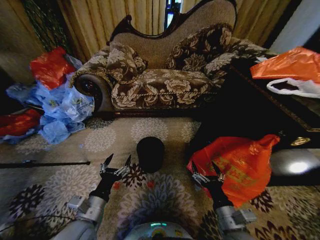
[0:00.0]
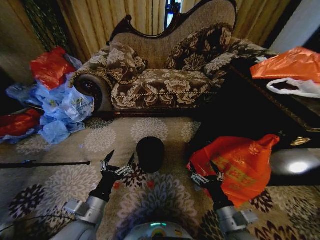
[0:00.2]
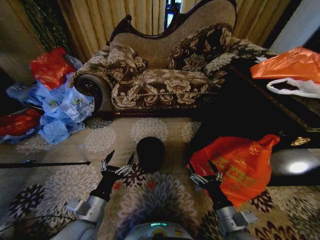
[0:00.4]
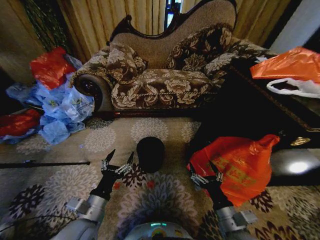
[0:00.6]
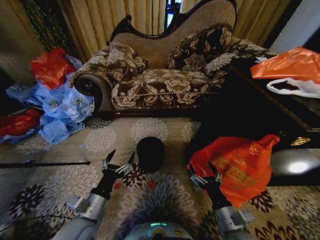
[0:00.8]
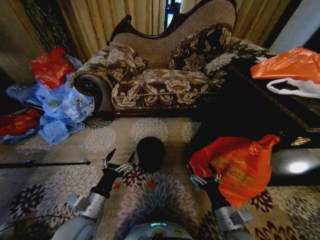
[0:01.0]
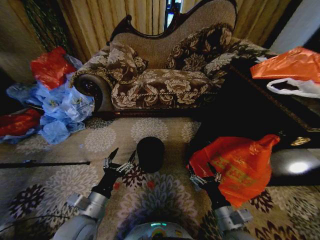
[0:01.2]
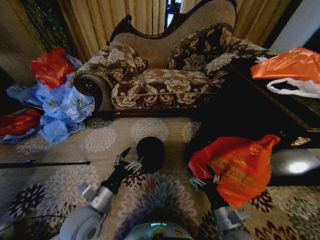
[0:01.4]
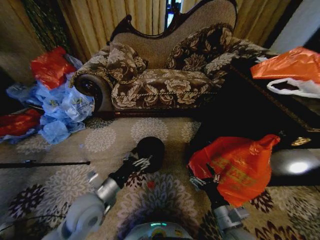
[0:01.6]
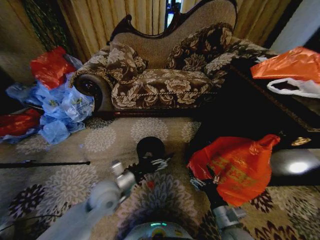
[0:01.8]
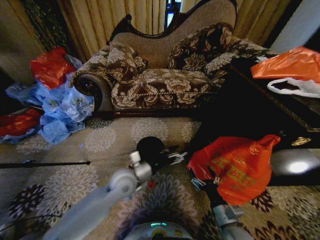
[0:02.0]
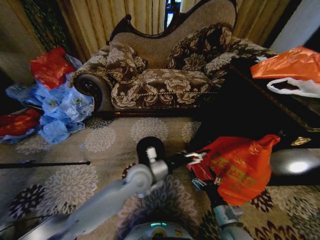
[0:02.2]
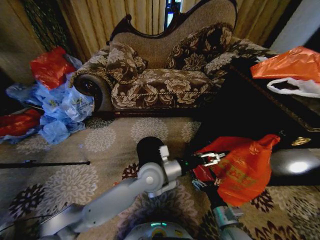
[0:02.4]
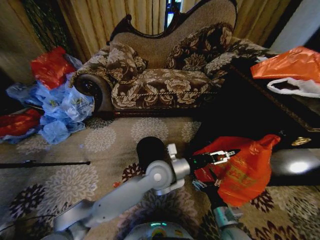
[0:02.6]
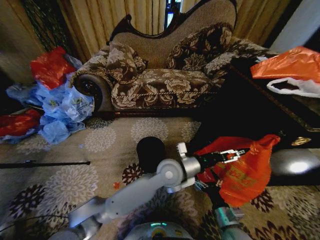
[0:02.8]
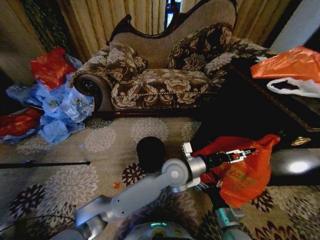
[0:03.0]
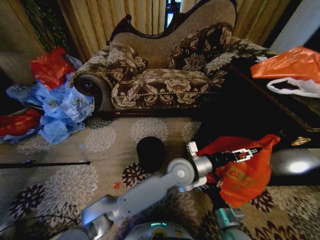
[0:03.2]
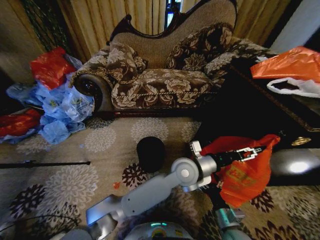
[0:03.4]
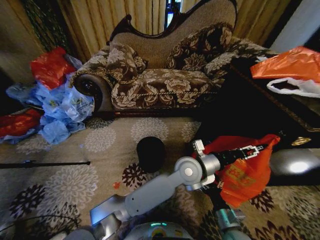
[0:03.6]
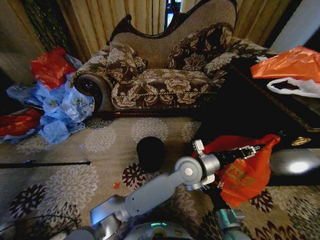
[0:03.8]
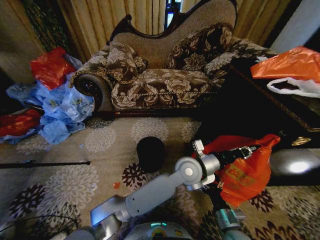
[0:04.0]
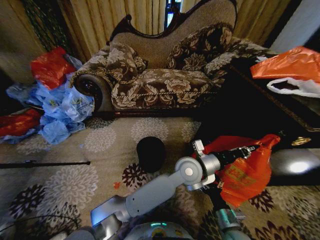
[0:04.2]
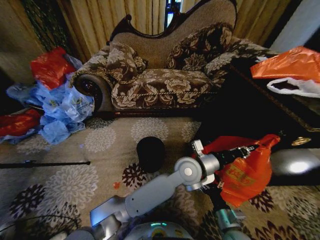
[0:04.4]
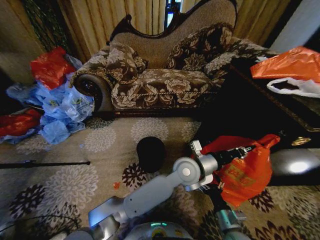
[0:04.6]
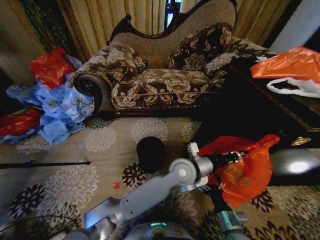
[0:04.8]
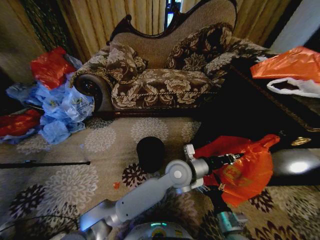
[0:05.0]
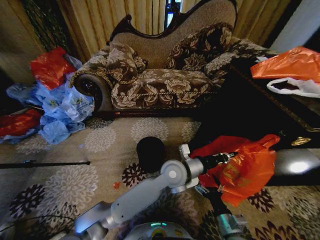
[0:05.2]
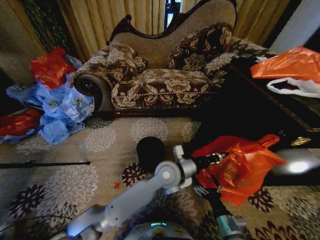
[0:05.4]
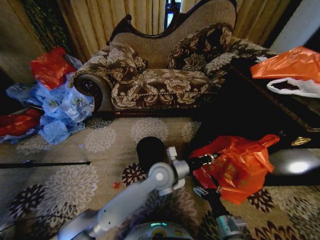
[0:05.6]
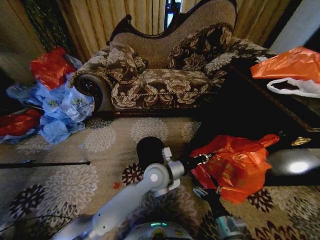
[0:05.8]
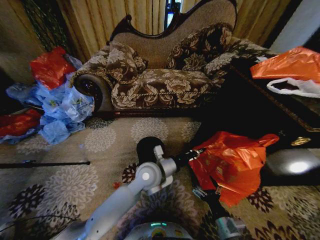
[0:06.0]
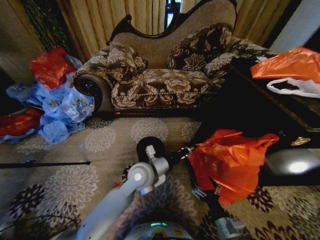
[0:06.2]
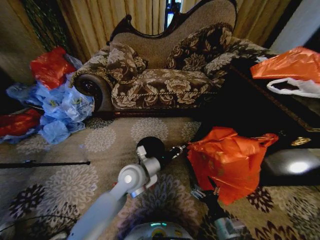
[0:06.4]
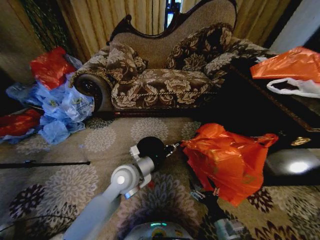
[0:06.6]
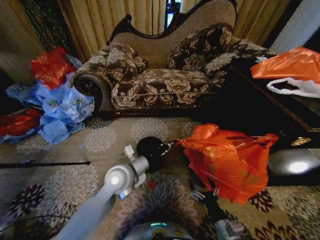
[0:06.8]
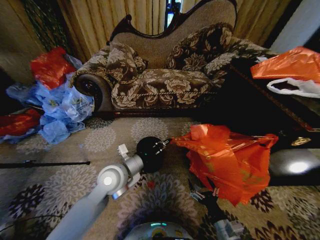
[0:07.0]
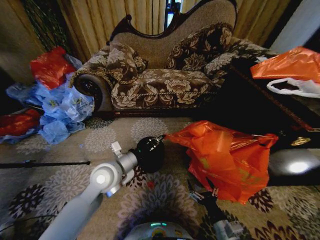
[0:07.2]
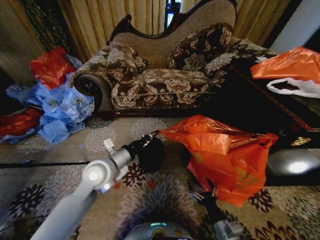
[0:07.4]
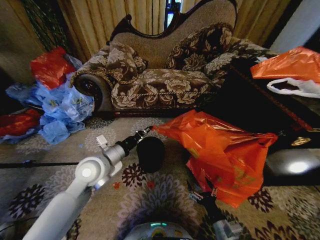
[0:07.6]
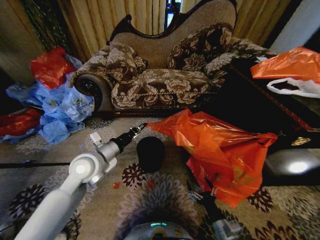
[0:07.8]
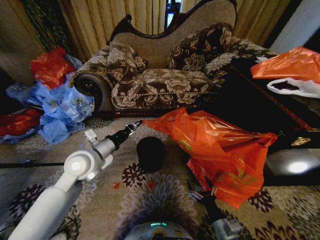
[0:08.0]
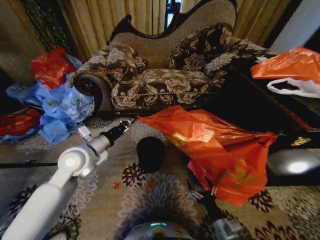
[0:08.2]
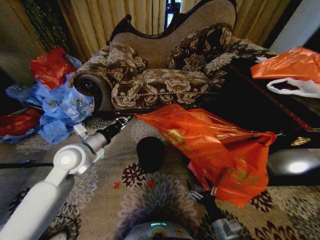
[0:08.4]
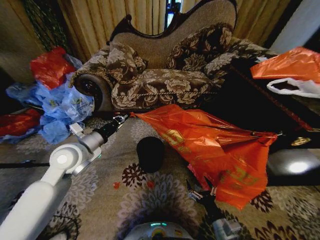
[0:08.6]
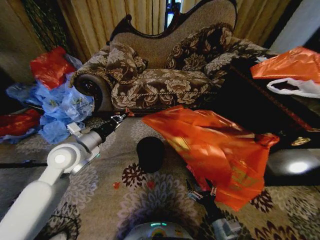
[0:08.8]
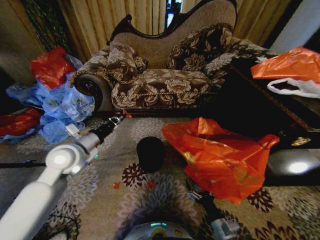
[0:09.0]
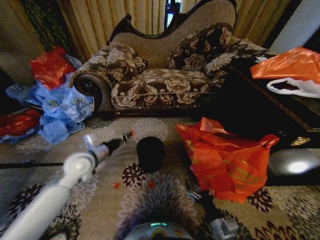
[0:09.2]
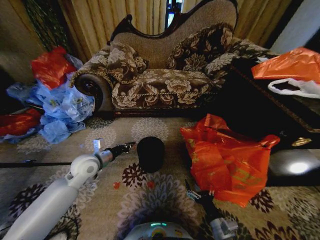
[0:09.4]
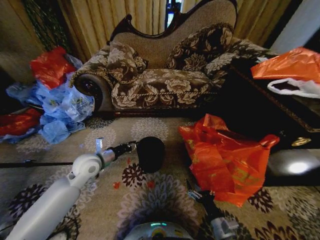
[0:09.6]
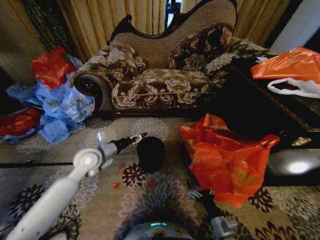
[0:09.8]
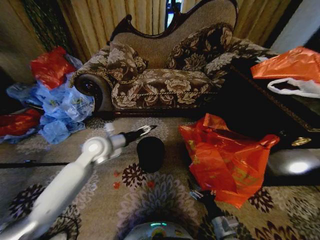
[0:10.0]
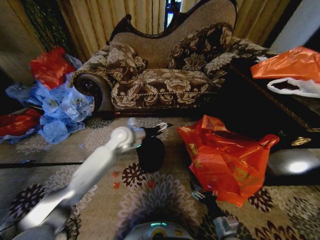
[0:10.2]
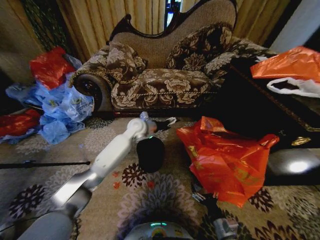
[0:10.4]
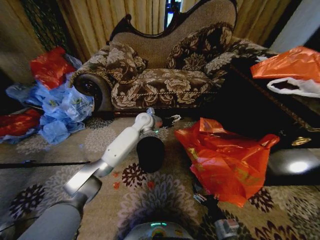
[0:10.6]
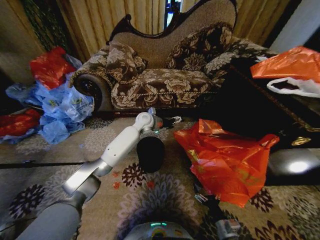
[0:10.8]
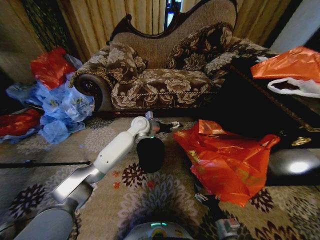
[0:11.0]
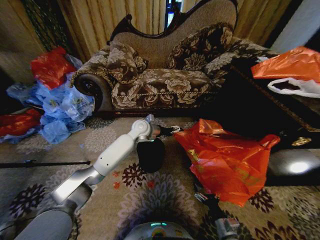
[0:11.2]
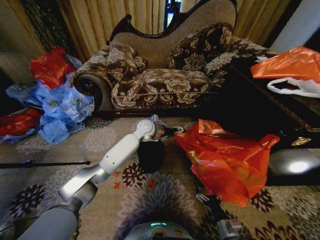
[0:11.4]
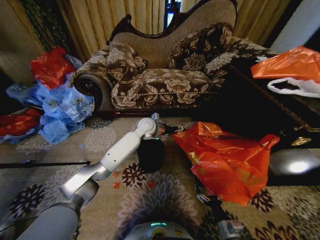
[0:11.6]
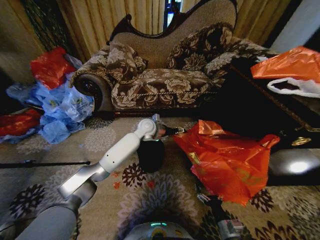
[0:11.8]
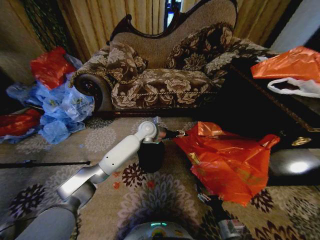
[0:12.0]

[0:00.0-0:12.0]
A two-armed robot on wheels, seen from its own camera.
Task of the whole recording: Place a garbage bag over the trash bin.
0:01.6 to 0:03.0: The right gripper shifts by roughly 5 cm. Meanwhile the left gripper goes some 30 cm to the right and forward.
0:03.0 to 0:04.4: The left gripper closes its fingers.
0:04.4 to 0:06.0: The left gripper moves to the left, some 15 cm.
0:06.0 to 0:07.6: The left gripper goes about 20 cm to the left.
0:07.6 to 0:09.0: The left gripper is displaced to the left by about 10 cm.
0:09.0 to 0:10.4: The right gripper goes approximately 5 cm downward. Meanwhile the left gripper goes about 30 cm forward and to the right, and opens.
0:10.4 to 0:12.0: The grippers make only small movements.

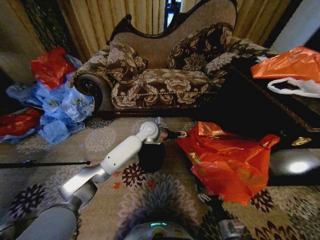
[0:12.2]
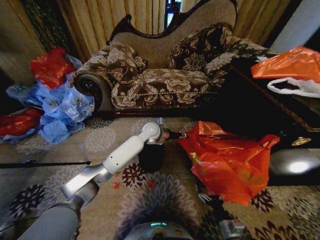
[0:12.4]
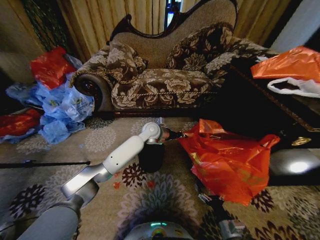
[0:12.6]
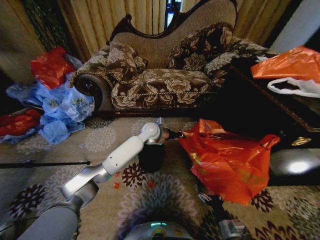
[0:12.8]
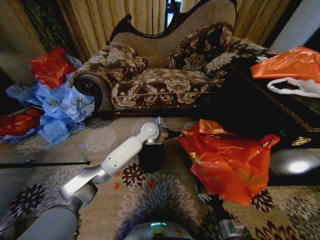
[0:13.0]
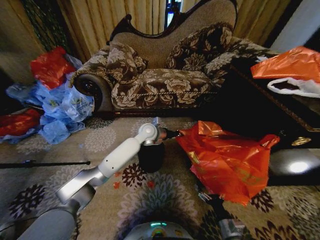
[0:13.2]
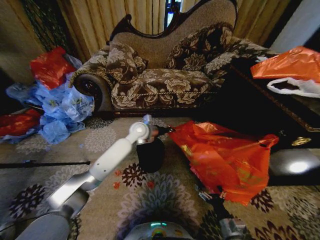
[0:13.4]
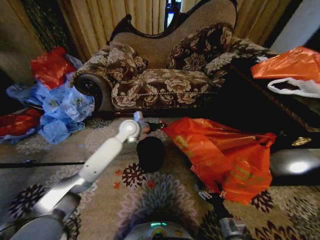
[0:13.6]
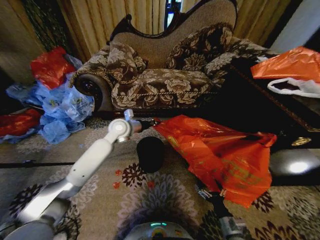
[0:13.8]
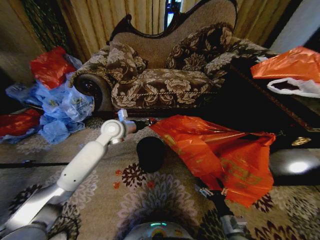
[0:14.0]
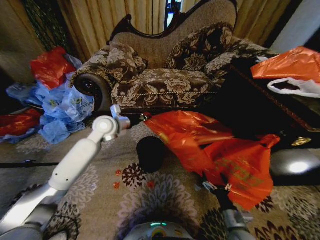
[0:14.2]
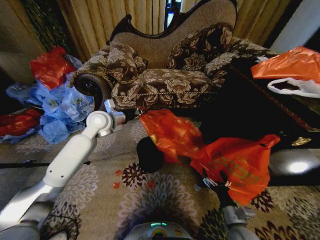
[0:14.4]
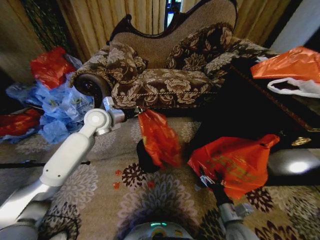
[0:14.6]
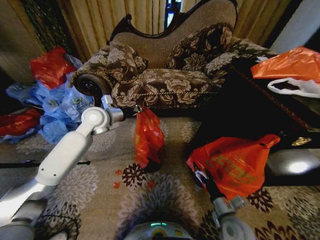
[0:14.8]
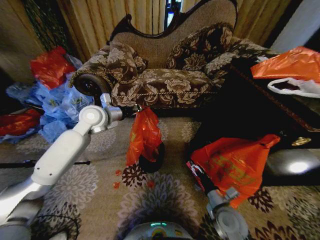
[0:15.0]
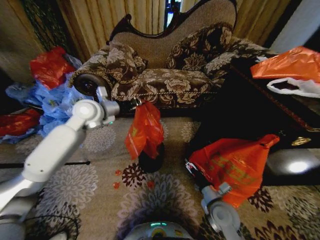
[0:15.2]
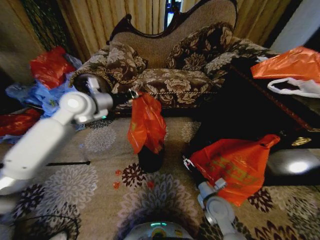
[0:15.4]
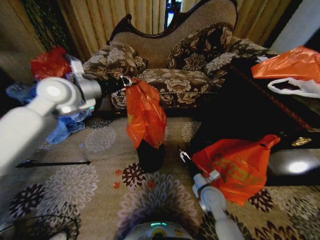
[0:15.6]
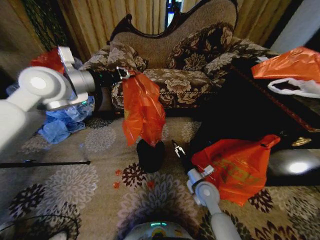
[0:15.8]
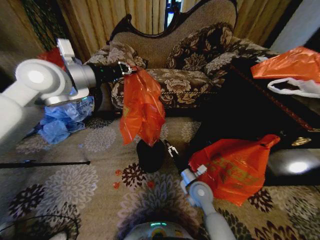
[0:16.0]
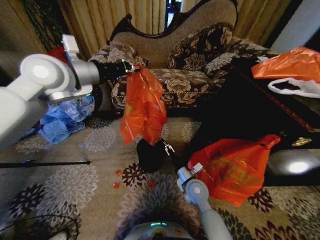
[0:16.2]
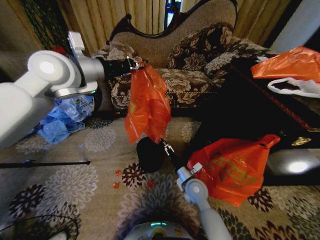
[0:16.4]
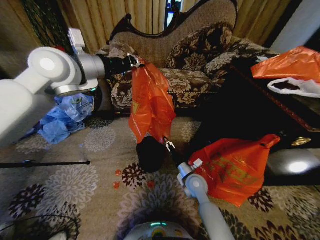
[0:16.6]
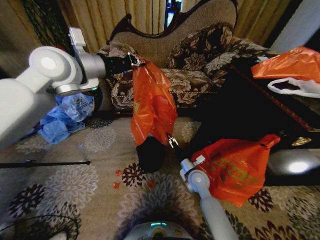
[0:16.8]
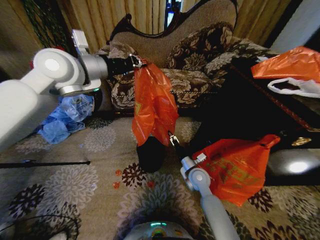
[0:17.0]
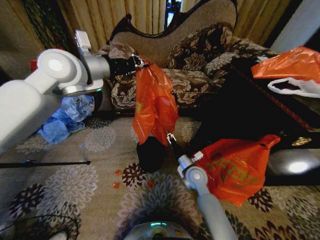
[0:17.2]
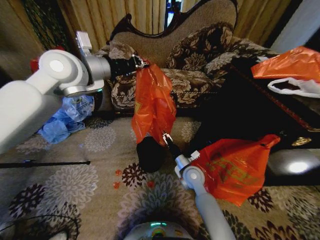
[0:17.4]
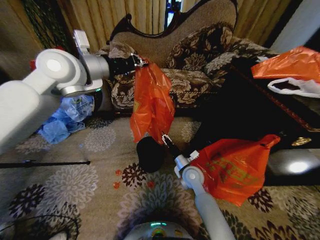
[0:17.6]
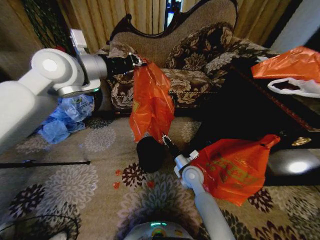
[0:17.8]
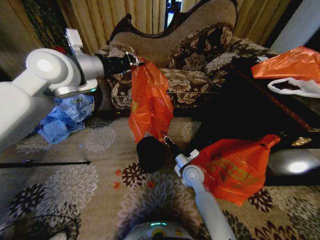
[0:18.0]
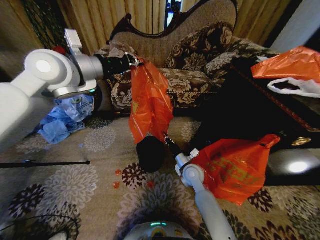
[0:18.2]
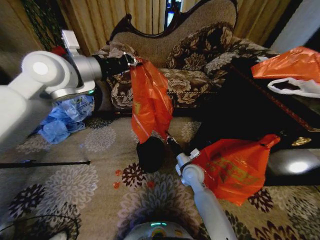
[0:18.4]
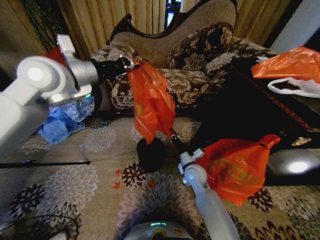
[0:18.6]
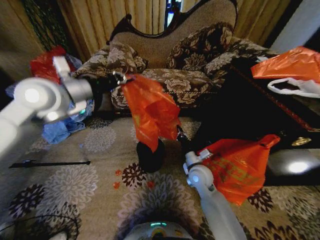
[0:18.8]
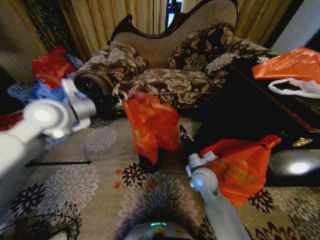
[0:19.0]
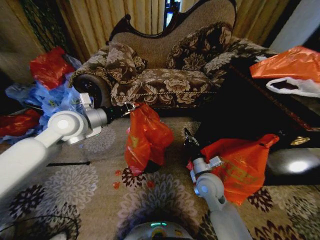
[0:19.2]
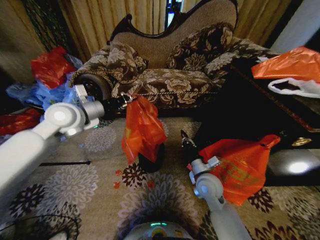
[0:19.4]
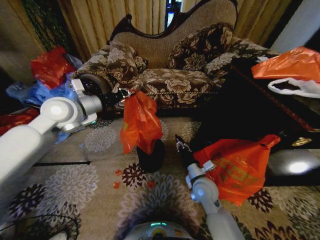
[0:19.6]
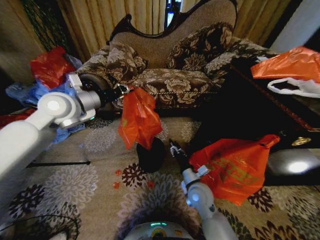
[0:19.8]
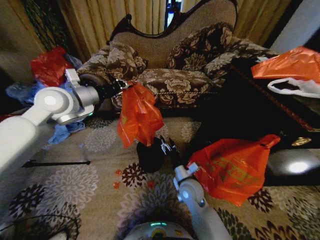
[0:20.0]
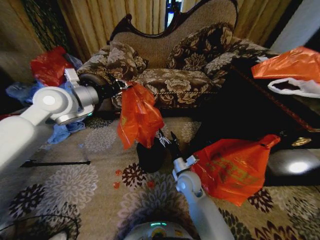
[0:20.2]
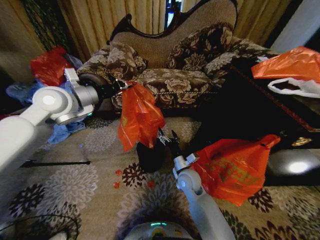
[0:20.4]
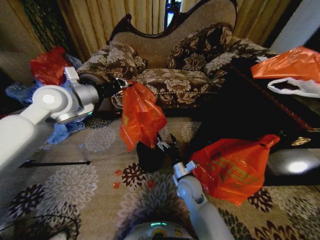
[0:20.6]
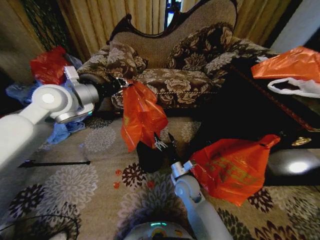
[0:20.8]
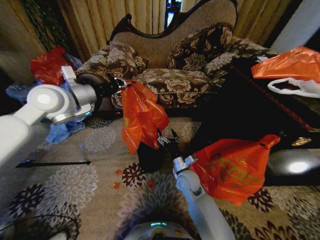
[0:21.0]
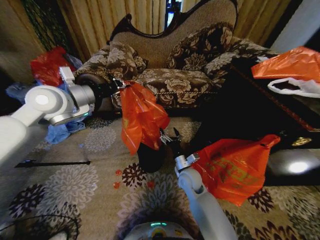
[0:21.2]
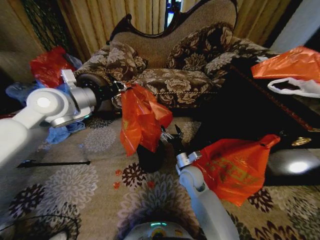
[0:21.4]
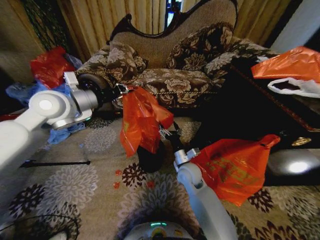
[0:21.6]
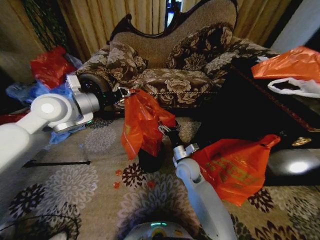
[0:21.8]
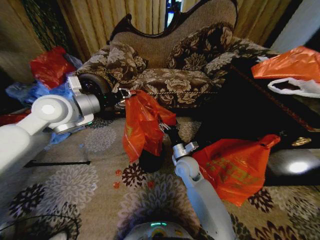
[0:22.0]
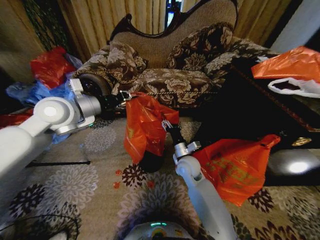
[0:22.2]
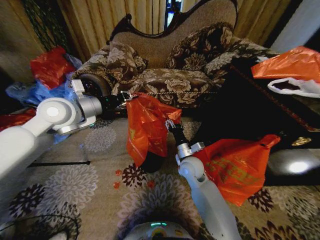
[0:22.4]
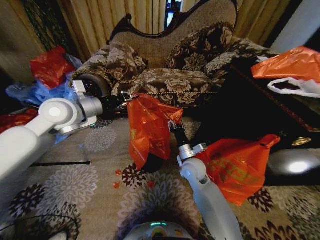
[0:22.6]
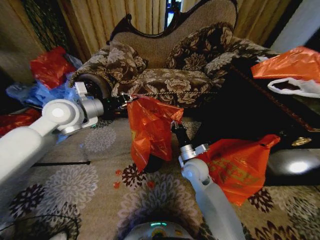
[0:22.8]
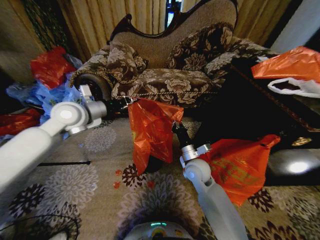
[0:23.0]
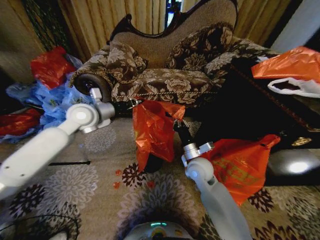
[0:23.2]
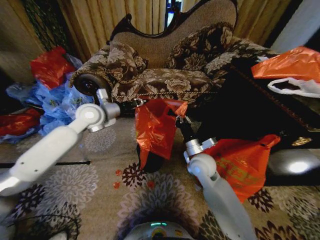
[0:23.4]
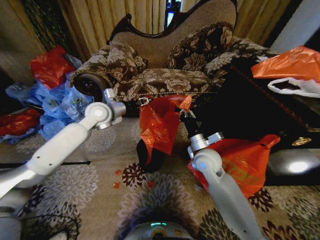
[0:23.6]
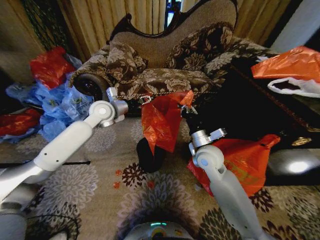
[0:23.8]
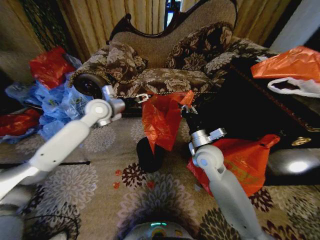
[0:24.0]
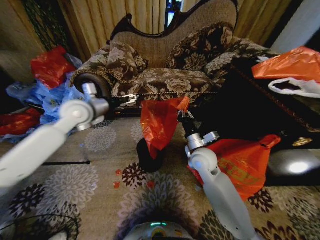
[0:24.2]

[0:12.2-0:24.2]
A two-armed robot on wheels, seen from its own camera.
Task of the whole recording: Place a garbage bag over the trash bin.
0:12.2 to 0:13.8: The left gripper travels to the left by approximately 15 cm, and closes up.
0:13.8 to 0:15.2: The left gripper goes approximately 15 cm upward and to the left, while the right gripper is displaced forward, upward and to the left by about 15 cm.
0:15.2 to 0:16.6: The right gripper travels forward and to the left by some 15 cm. The left gripper travels upward by some 15 cm.
0:16.6 to 0:18.2: The right gripper closes its fingers.
0:18.2 to 0:19.8: The right gripper travels backward by about 10 cm, and opens its fingers. The left gripper goes approximately 10 cm downward.
0:19.8 to 0:21.2: The right gripper moves forward, approximately 5 cm, and opens up.
0:21.2 to 0:22.6: The right gripper goes about 5 cm upward, and closes up.
0:22.6 to 0:24.2: The left gripper opens; the right gripper shifts roughly 5 cm upward, and closes.
